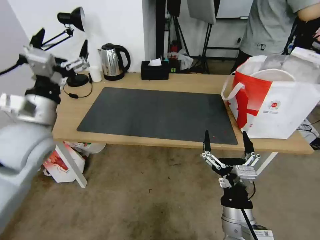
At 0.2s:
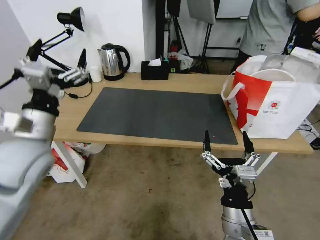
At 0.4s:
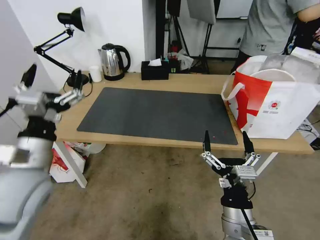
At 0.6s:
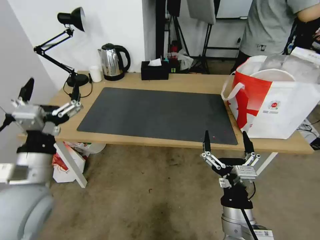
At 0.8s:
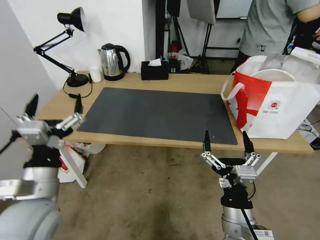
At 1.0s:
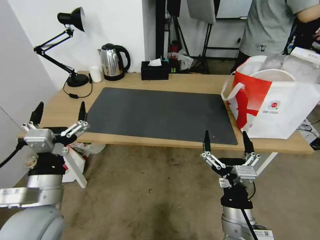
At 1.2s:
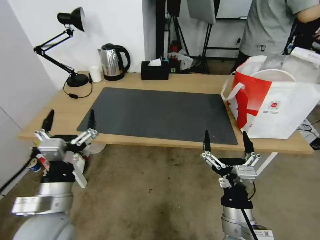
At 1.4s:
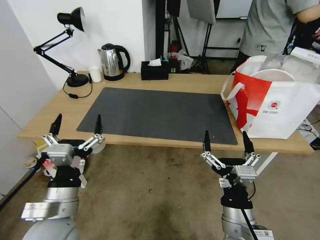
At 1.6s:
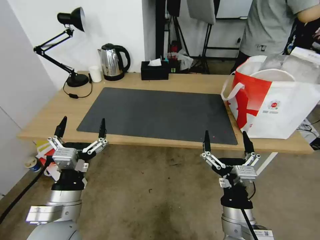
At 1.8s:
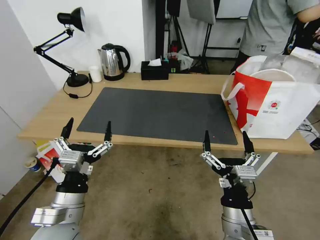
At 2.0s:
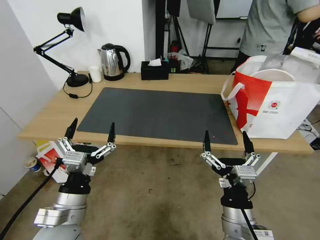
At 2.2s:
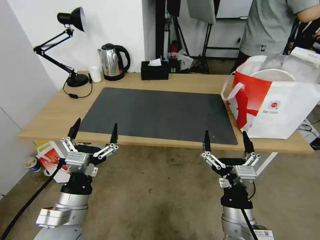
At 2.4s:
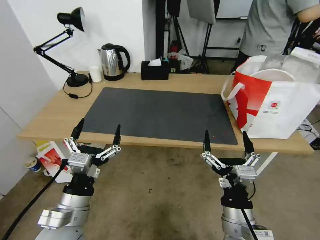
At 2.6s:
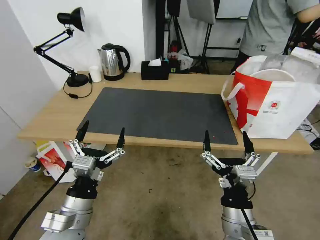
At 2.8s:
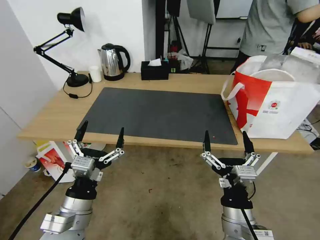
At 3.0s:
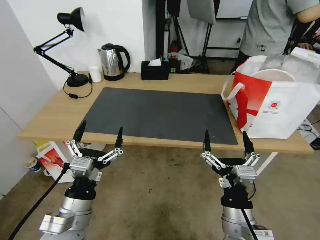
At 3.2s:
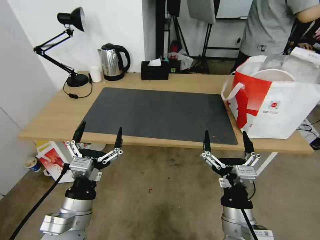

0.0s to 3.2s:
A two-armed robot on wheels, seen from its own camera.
Task of the whole recording: Pick up the trash from the table and place it into the takeout bag.
0.0s to 1.6s: The left gripper is displaced backward, downward and to the right by some 20 cm.
1.6s to 3.2s: The grippers stay close to where they were, moving slightly.
